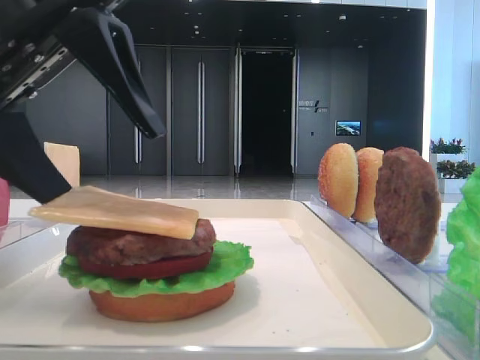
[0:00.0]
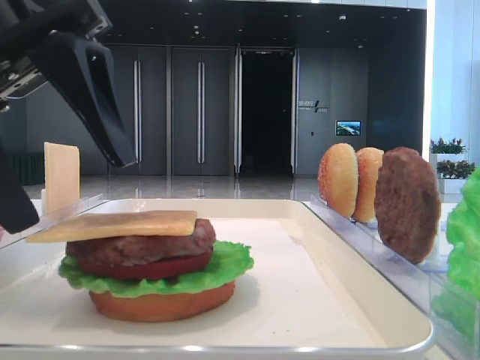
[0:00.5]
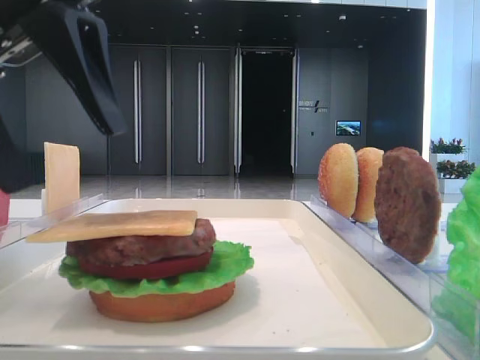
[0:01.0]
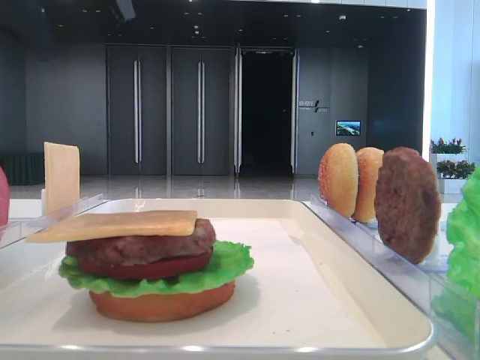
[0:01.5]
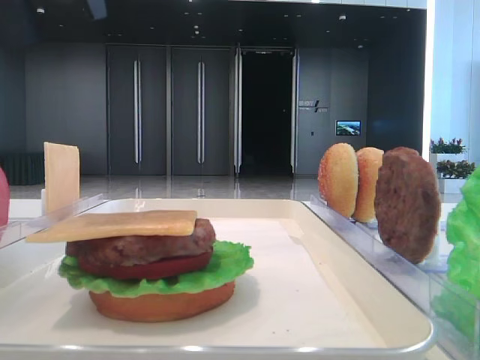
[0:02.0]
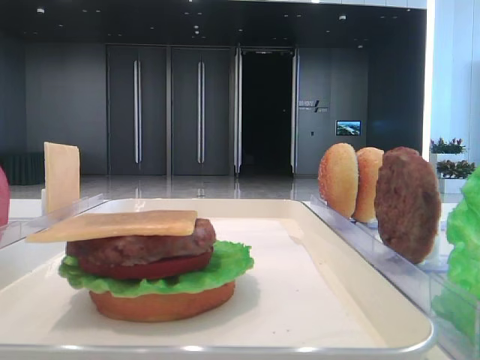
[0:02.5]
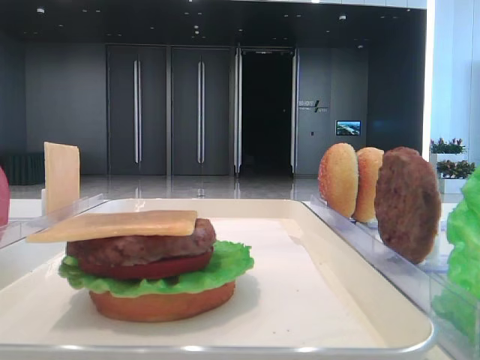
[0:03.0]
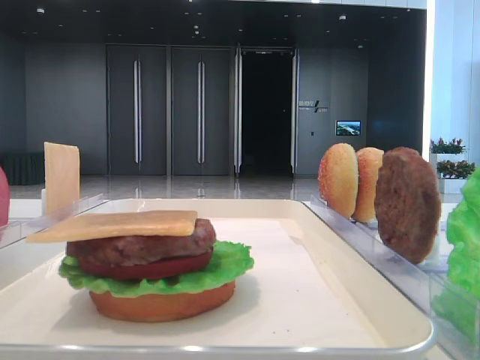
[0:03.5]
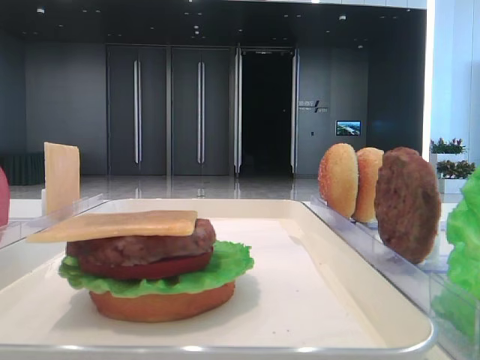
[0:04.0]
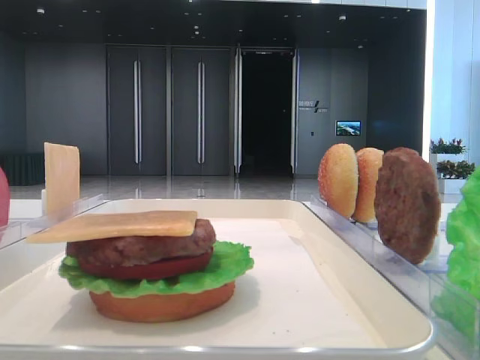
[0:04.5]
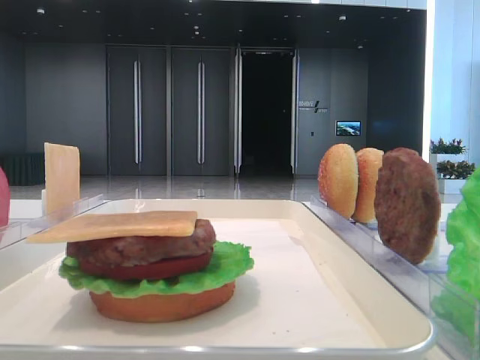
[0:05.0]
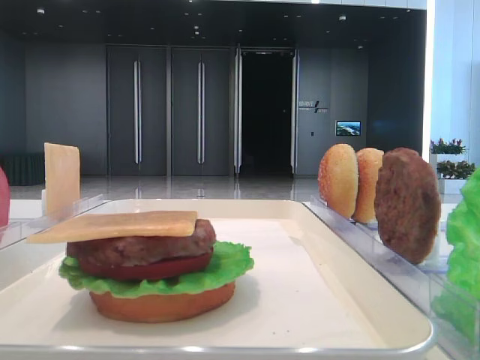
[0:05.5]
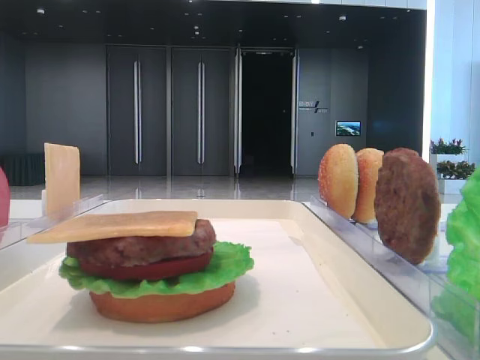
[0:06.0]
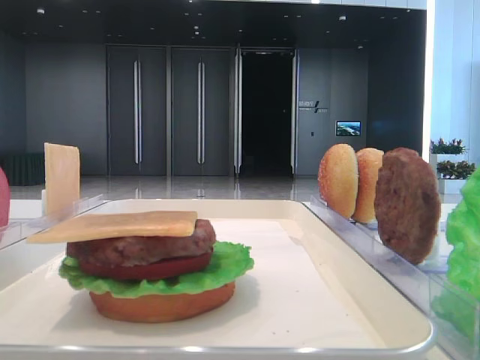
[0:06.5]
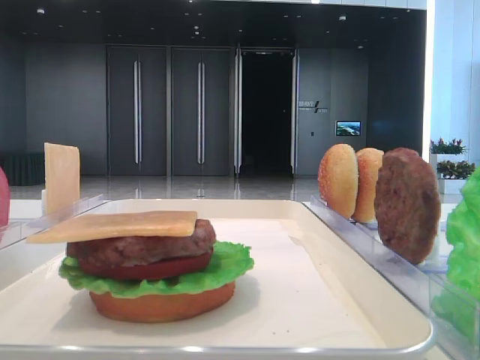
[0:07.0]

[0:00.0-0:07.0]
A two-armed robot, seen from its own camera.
0:00.0 to 0:02.0: The left gripper heads upward, covering approximately 15 cm.
0:02.0 to 0:03.5: The left gripper moves to the left, roughly 15 cm.

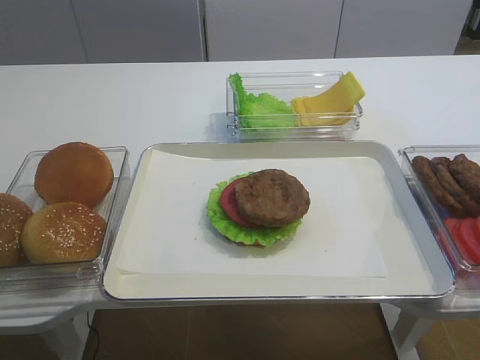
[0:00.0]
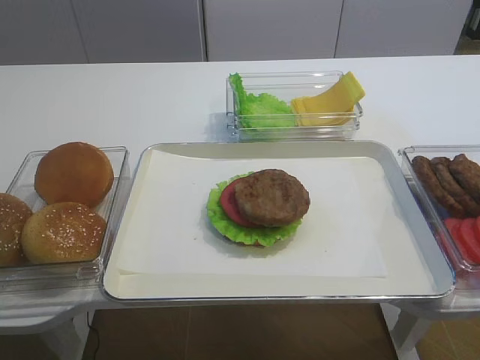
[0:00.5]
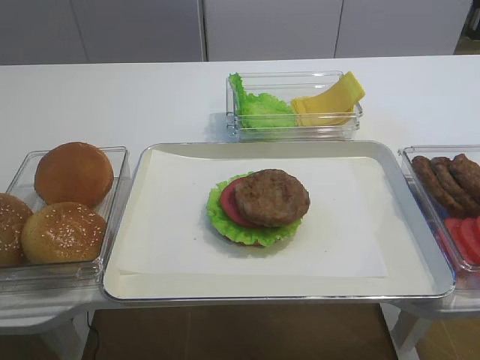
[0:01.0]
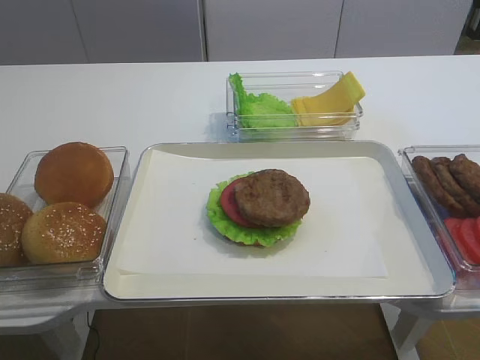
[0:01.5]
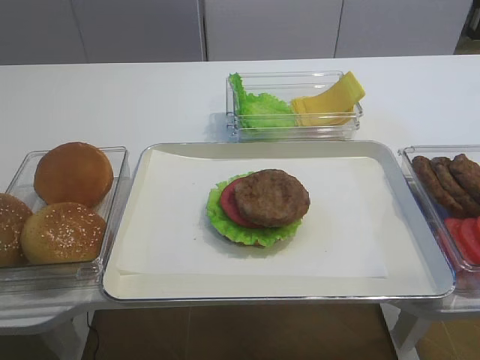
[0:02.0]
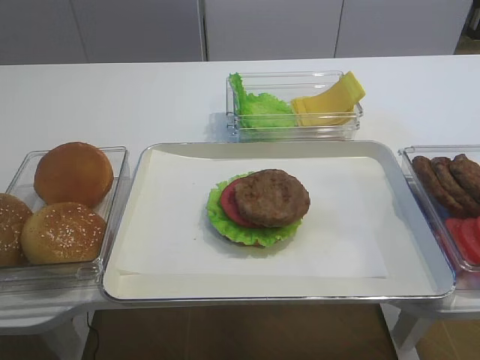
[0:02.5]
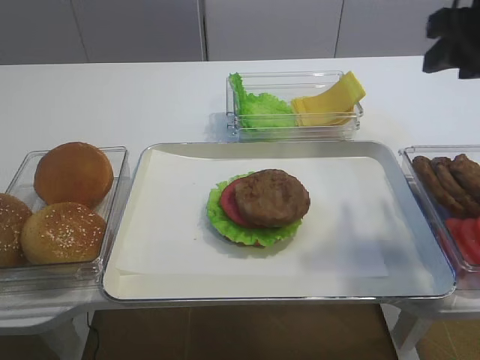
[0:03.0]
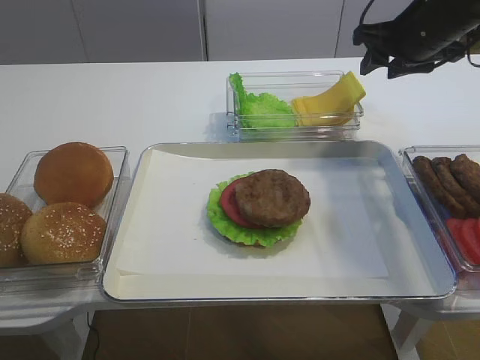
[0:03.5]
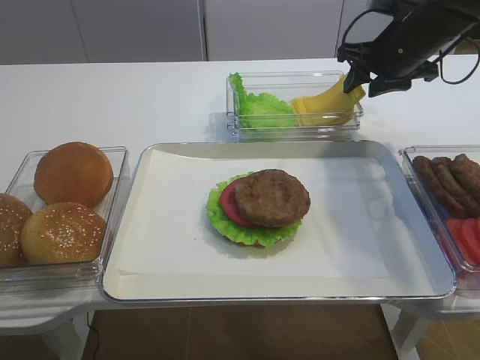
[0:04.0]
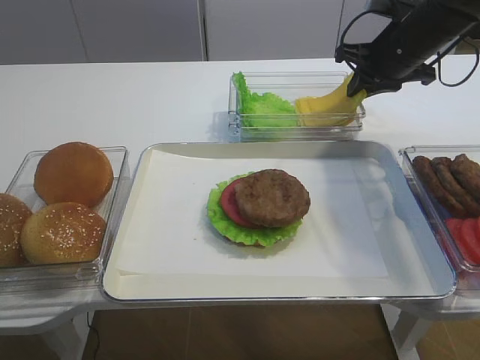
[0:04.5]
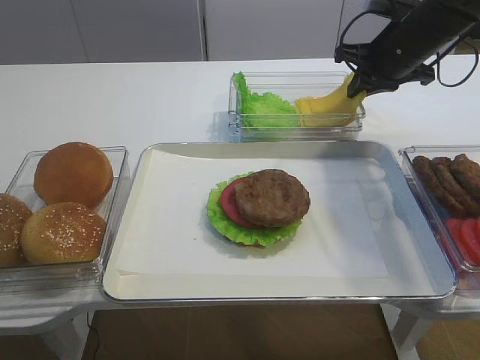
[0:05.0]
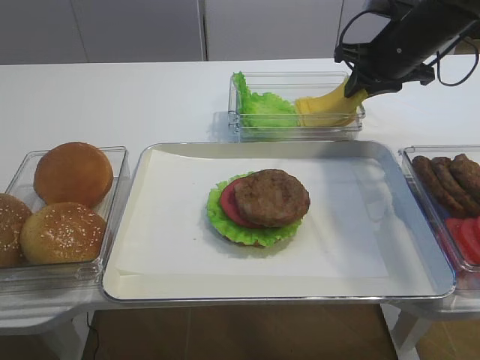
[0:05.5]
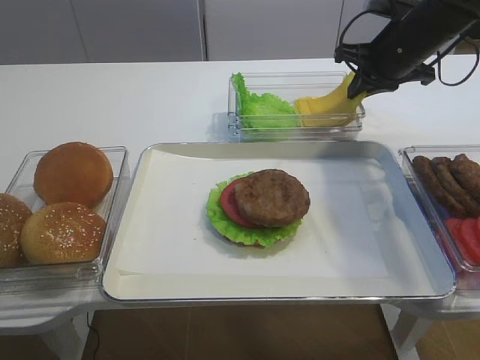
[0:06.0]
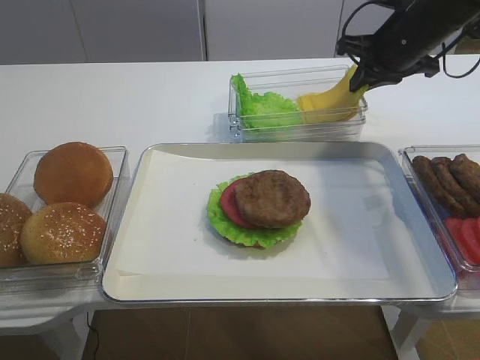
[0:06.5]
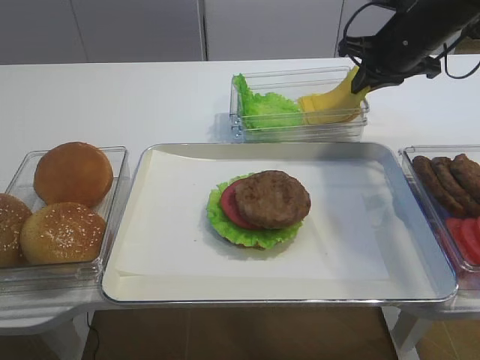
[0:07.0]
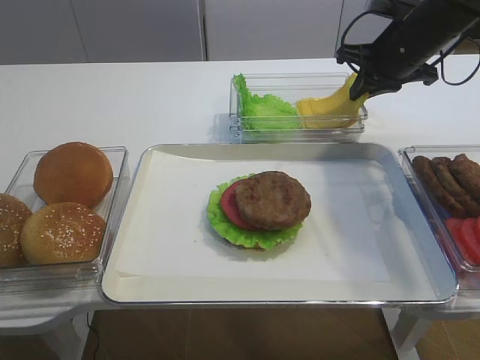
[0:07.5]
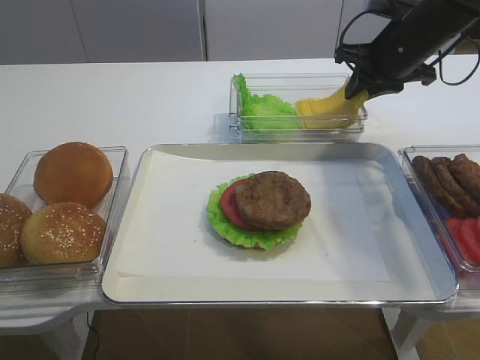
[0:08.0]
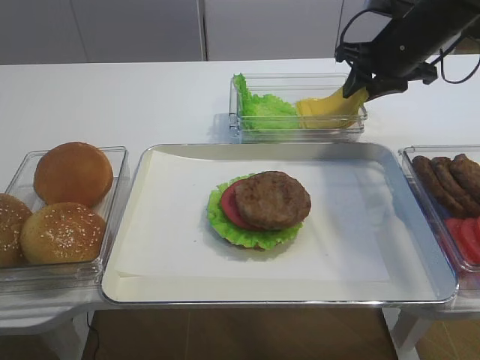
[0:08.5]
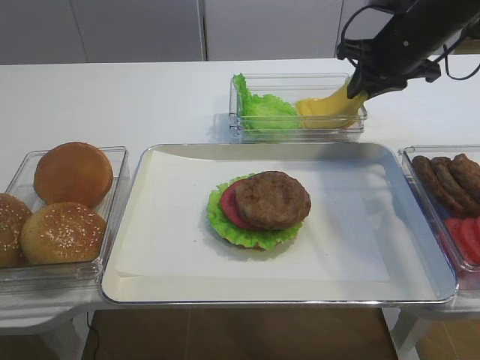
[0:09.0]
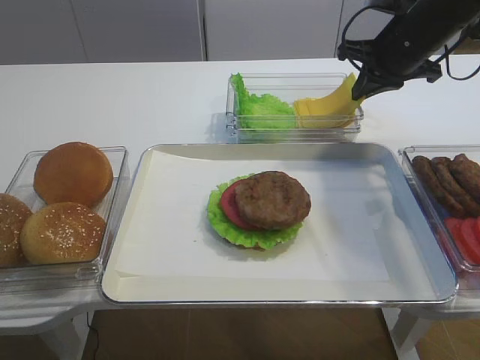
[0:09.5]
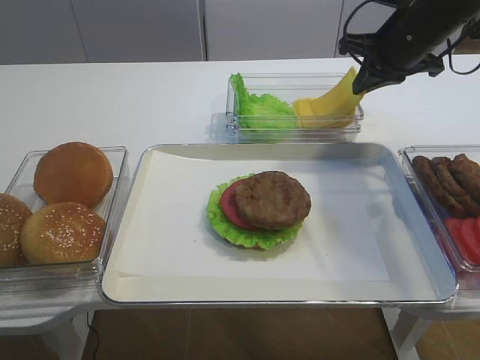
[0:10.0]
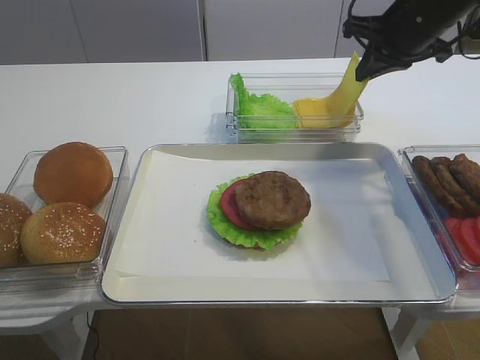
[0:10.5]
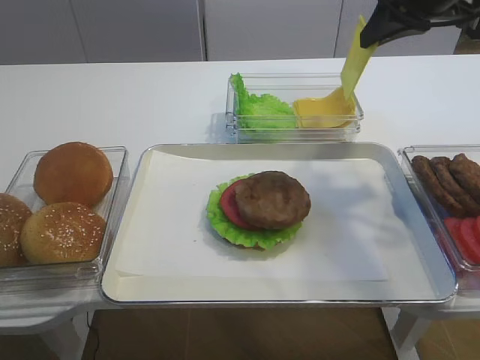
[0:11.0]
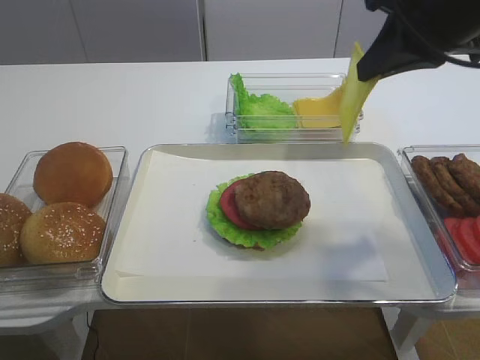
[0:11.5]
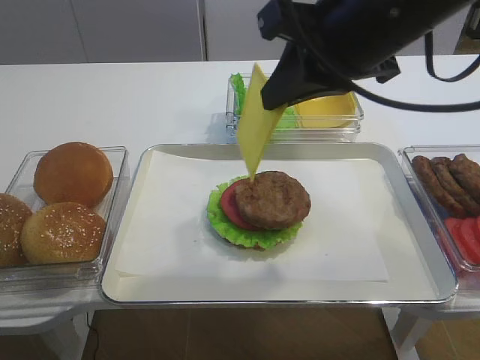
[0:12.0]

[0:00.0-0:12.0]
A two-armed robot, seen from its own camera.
Step, 0:00.0 to 0:11.0: Pick up the cheese slice with the right gripper.
0:02.0 to 0:04.0: The right gripper goes approximately 40 cm forward.
0:04.0 to 0:06.0: The right gripper closes.
0:06.0 to 0:08.0: The right gripper opens up.
0:08.0 to 0:10.0: The right gripper closes.
0:10.0 to 0:12.0: The right gripper goes about 20 cm backward, to the left and upward.

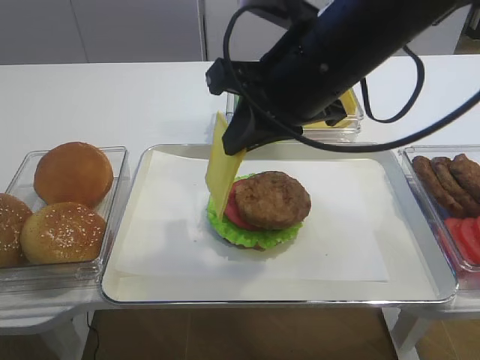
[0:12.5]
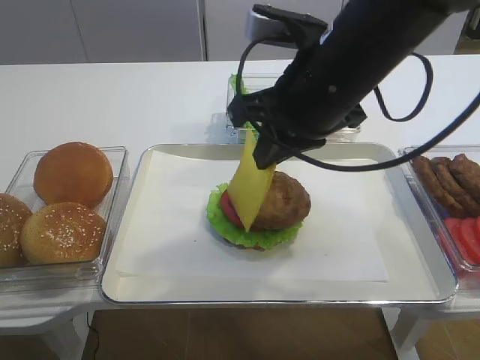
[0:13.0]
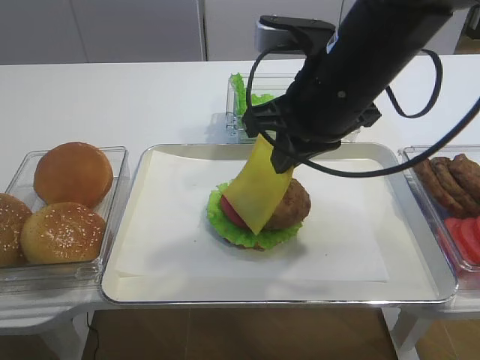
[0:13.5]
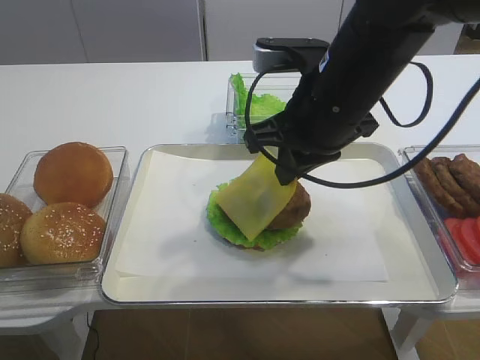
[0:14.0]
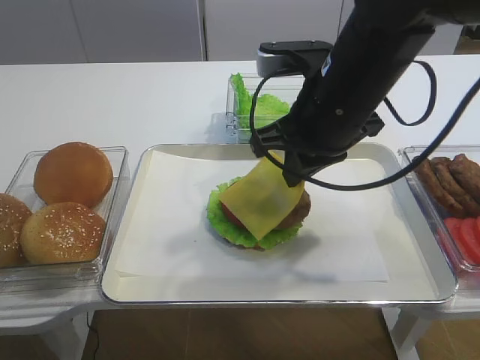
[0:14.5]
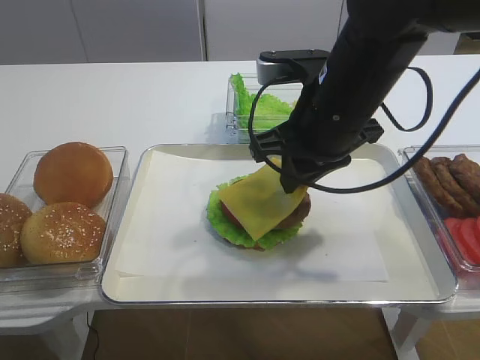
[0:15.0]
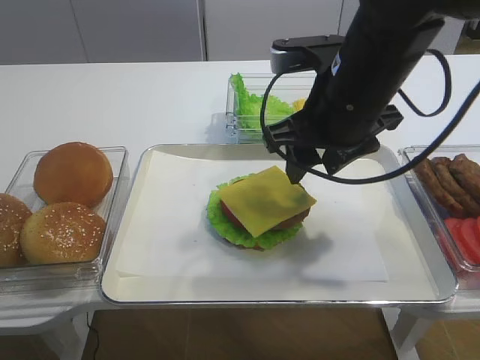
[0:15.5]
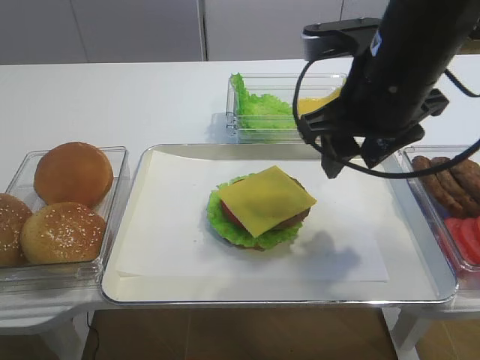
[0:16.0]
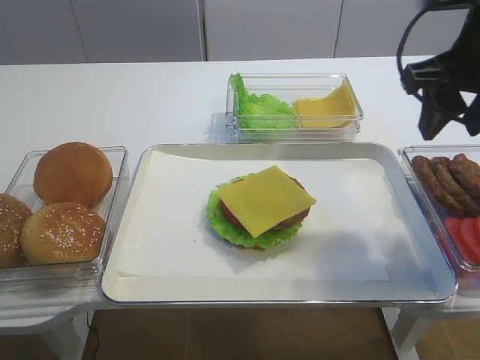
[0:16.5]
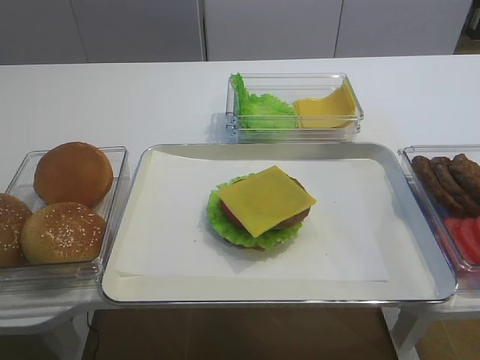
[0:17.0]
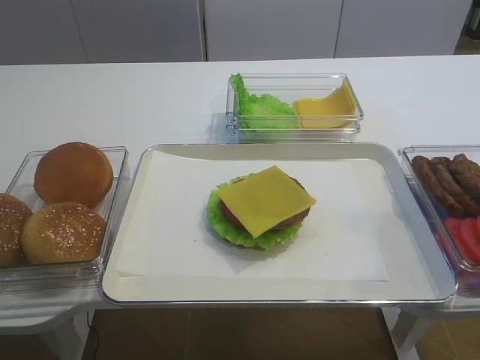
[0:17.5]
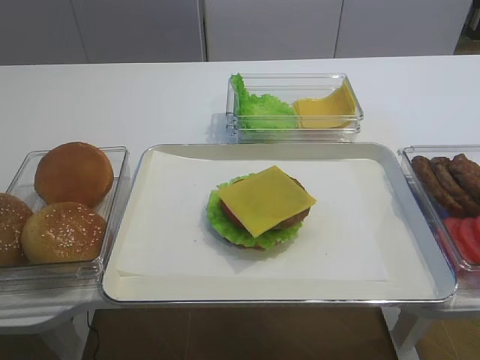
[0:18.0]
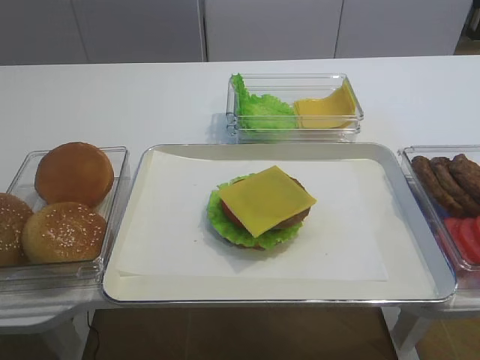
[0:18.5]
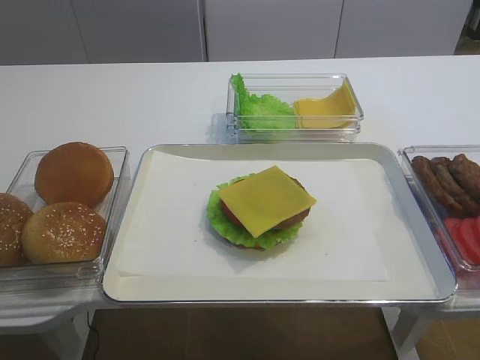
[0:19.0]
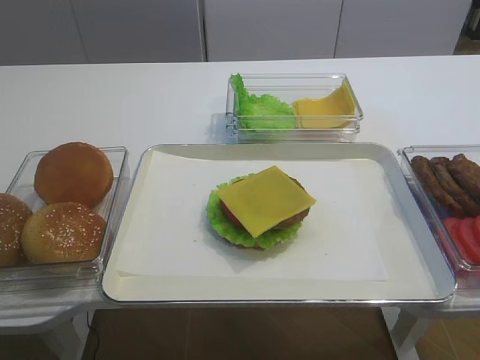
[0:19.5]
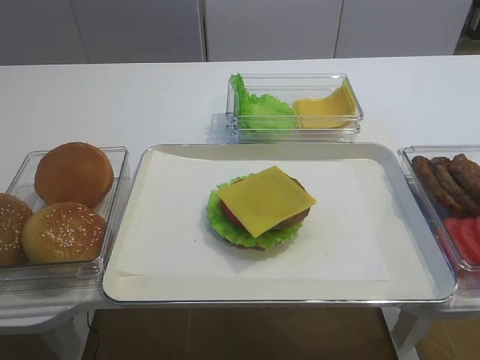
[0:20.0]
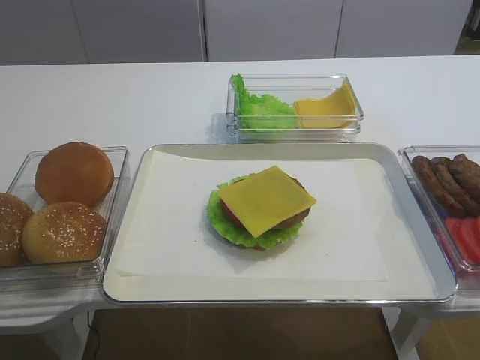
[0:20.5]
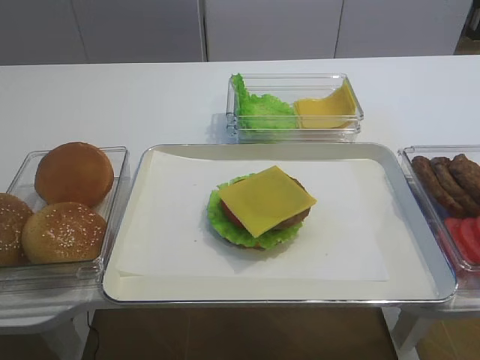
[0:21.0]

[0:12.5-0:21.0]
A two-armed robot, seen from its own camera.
Step, 0:12.5 to 0:16.0: Place the cheese slice on the cutlet with the right gripper.
0:12.5 to 0:14.5: The right gripper ends up approximately 5 cm from where it was.
0:14.5 to 0:16.5: The right gripper is displaced to the right and upward by approximately 15 cm, and opens its fingers.
0:16.5 to 0:19.0: The right gripper travels backward by roughly 30 cm.
